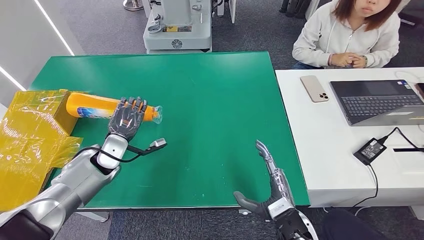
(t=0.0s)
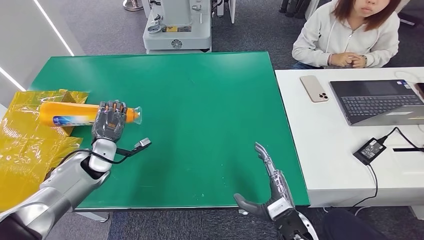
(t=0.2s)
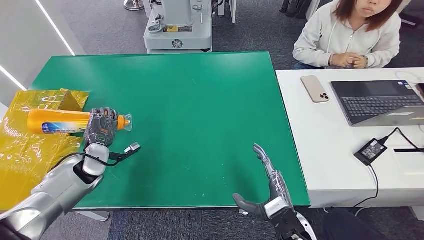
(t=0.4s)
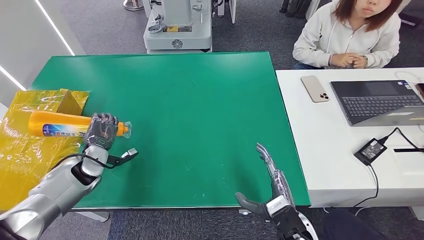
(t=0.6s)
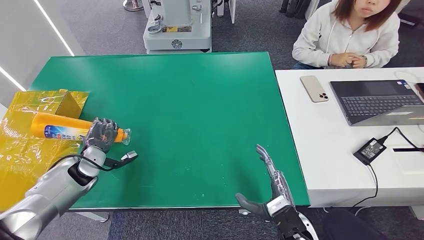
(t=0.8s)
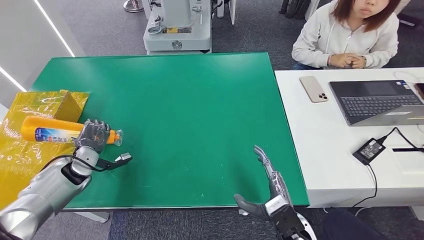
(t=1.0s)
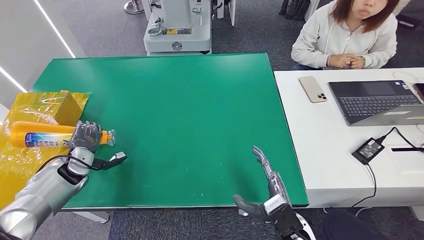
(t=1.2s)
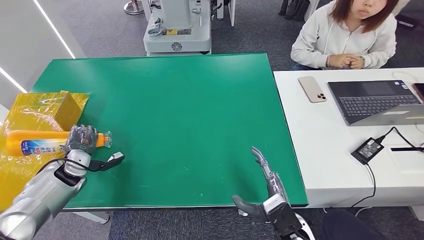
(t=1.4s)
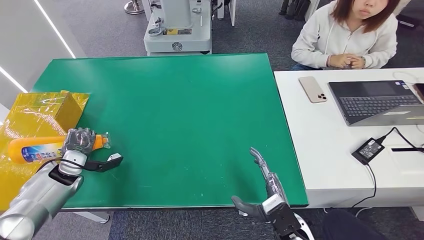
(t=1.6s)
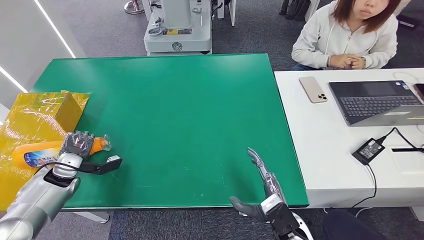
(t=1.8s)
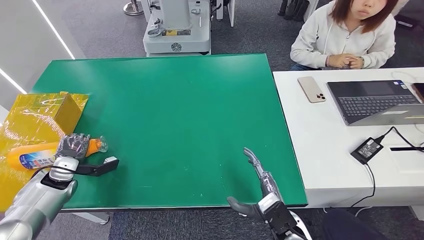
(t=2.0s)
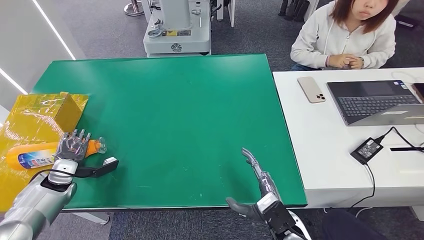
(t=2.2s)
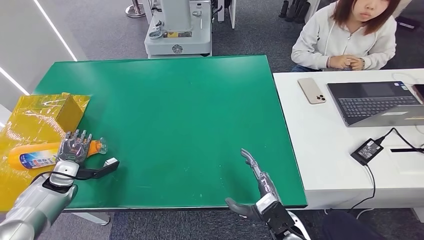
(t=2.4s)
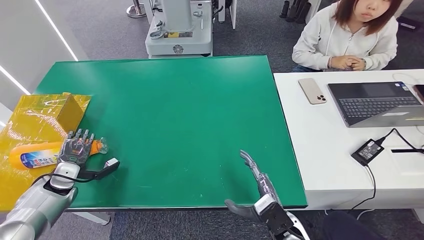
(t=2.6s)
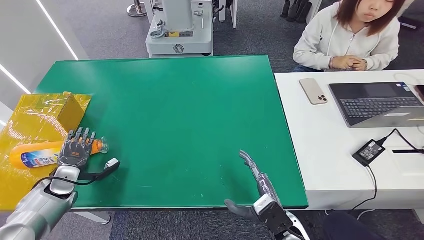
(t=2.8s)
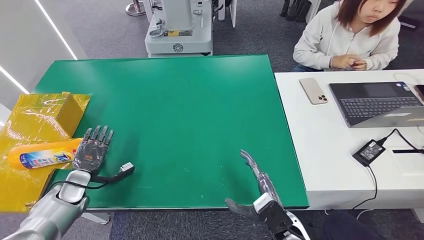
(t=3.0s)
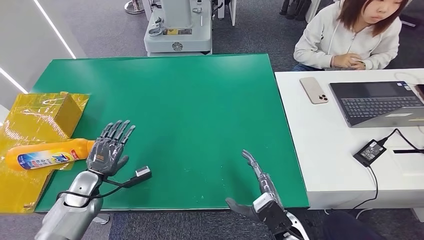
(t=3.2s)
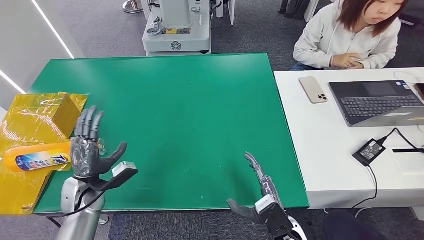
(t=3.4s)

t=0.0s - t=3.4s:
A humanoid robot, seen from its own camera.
Step, t=0.0s - t=3.4s: Turn the bottle to the front side.
t=0.0s - t=1.6s: The left hand moves to the left, about 10 cm.
t=1.6s - t=3.4s: The left hand is displaced to the right and backward by approximately 15 cm.
